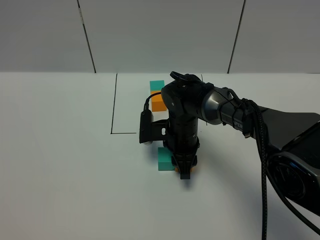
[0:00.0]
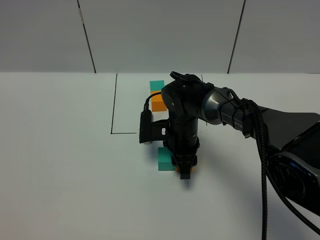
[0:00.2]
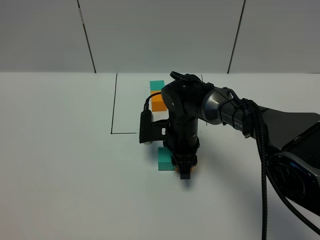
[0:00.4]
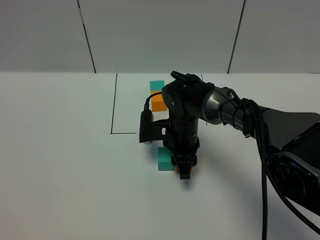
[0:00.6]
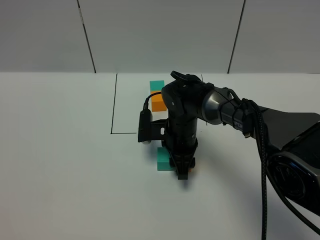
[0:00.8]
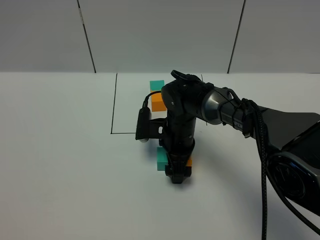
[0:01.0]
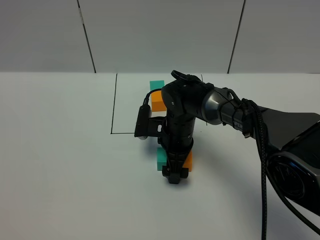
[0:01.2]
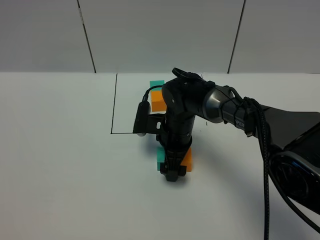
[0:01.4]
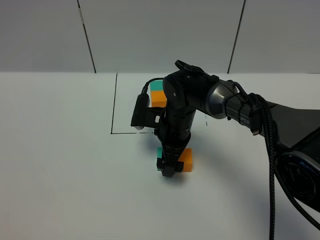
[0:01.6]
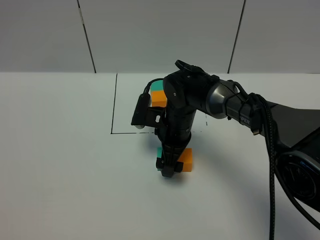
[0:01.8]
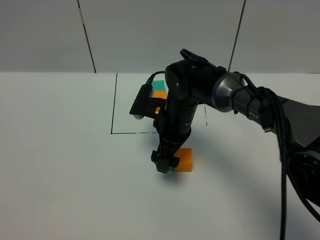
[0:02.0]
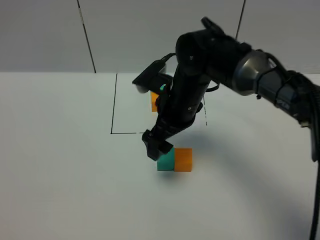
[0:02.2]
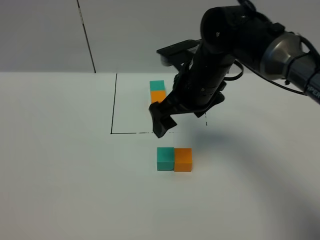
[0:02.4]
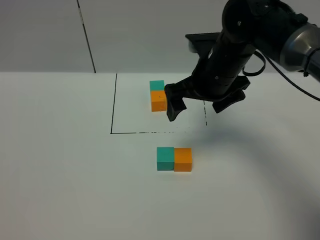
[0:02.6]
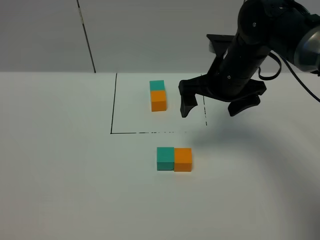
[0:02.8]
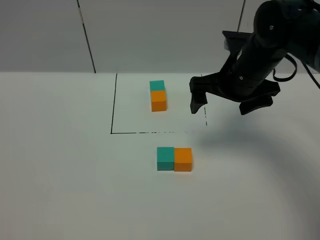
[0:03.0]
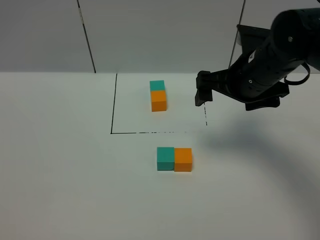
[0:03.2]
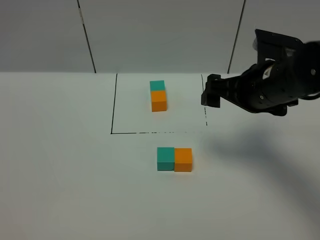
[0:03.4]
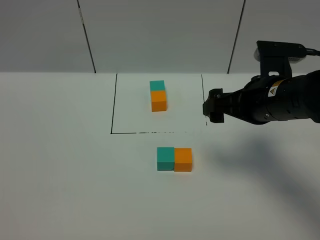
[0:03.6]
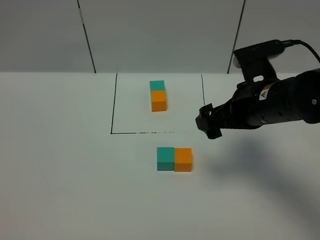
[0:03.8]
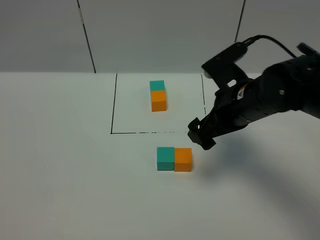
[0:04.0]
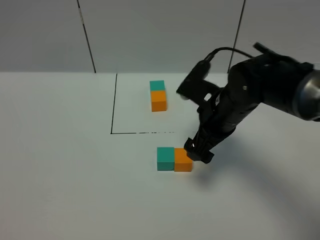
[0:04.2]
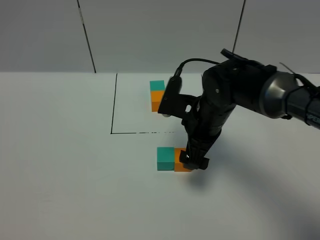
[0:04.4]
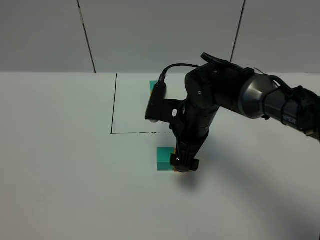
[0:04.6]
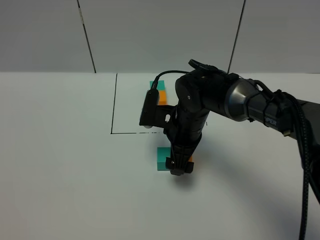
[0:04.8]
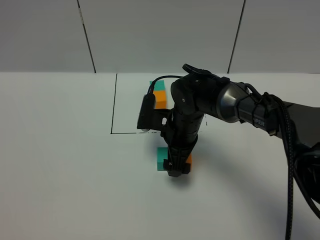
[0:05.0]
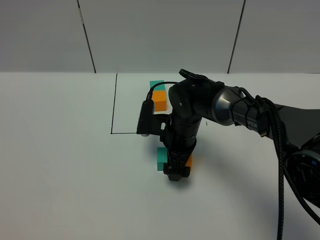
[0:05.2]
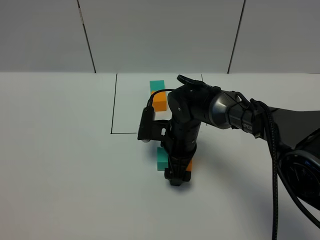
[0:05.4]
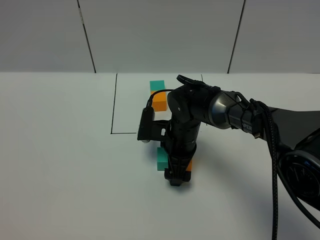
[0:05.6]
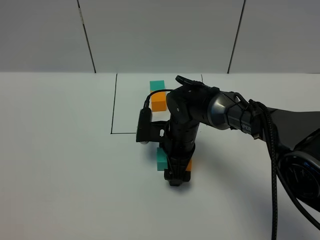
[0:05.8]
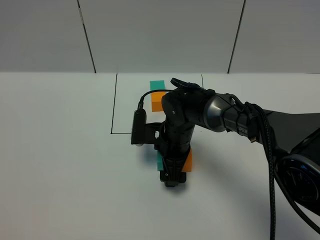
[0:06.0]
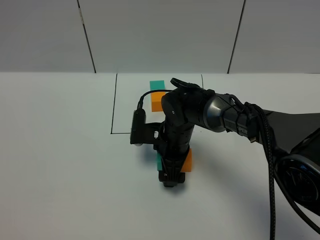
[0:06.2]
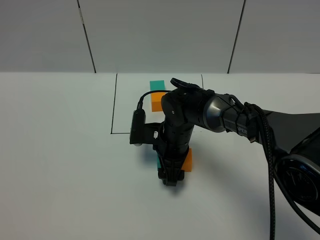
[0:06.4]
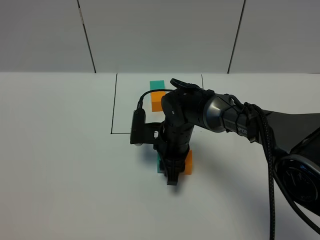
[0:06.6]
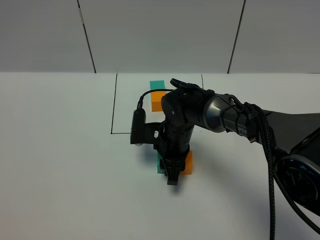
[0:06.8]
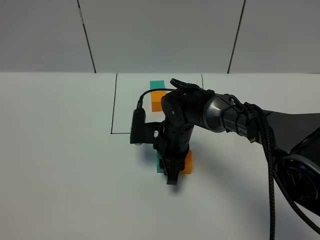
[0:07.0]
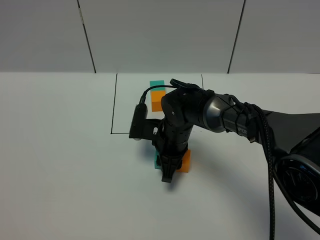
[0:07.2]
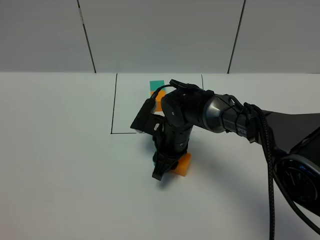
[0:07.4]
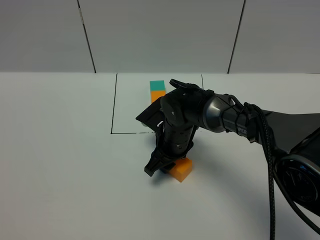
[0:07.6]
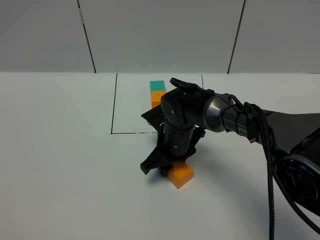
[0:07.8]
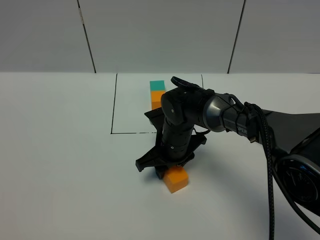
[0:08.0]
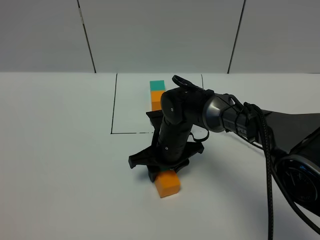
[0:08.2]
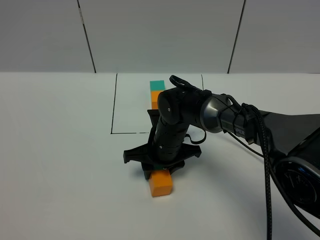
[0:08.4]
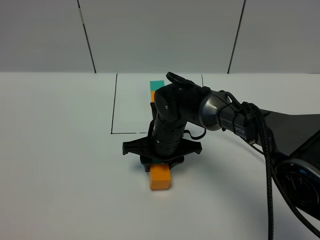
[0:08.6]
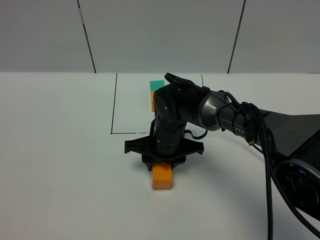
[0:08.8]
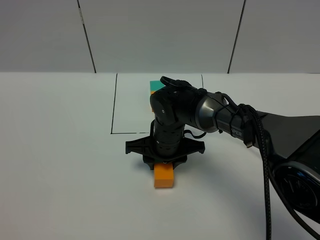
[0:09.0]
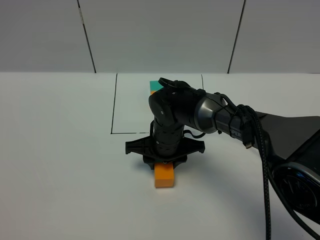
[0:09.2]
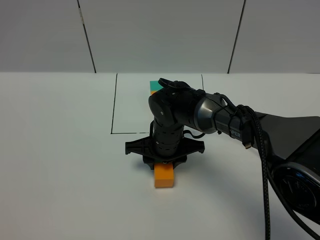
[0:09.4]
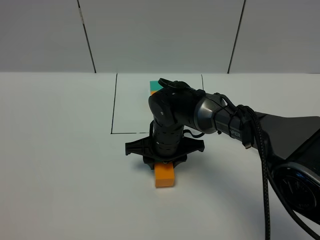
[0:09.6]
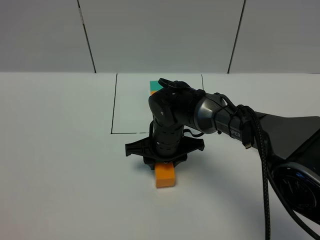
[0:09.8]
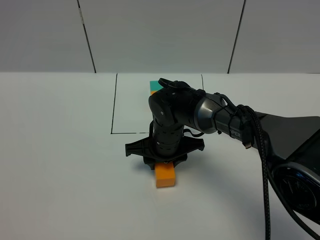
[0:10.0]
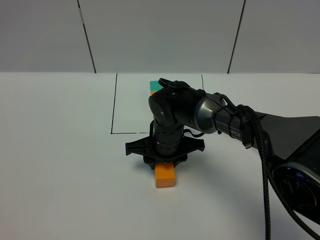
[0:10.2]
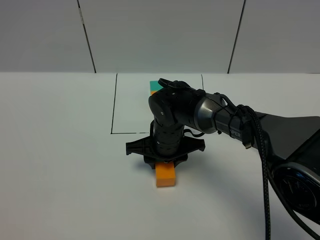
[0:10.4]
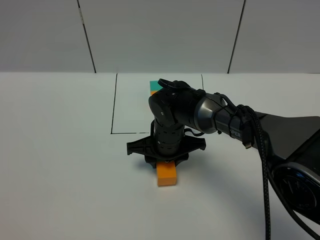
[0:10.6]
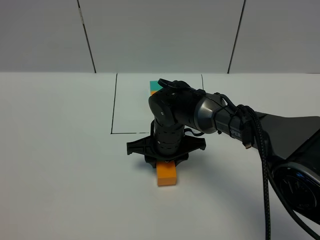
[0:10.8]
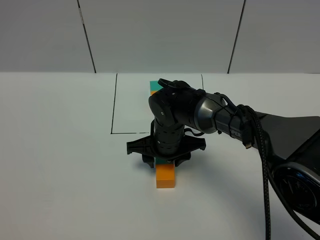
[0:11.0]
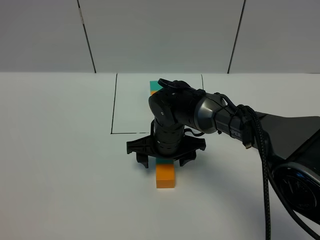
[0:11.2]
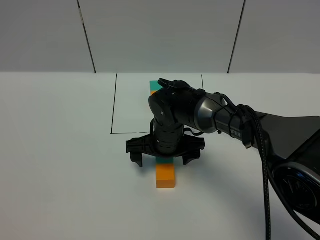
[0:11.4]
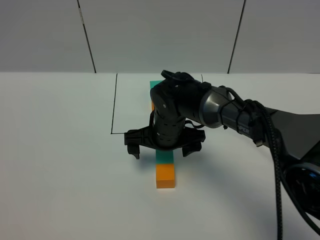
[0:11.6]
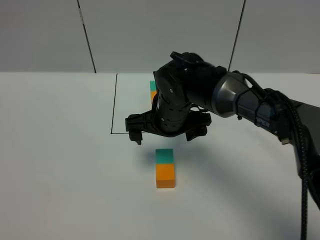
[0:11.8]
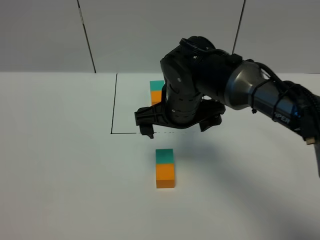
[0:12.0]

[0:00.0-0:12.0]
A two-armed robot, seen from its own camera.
Task of the whole recording: According to the building block template in front, assemble the scattered blocks together.
Step, 0:01.4 to 0:11.4: Adjust the pose of the building blocks.
0:00.0 to 0:01.6: The right gripper opens its fingers.
0:01.6 to 0:03.0: The right gripper shifts roughly 20 cm upward and to the right.
0:03.0 to 0:04.4: The right gripper shifts approximately 10 cm downward and to the left.
0:04.4 to 0:06.0: The right gripper moves downward and to the left, about 10 cm.
0:06.0 to 0:07.6: The right gripper closes.
0:09.0 to 0:10.4: Both grippers stay put.
0:10.4 to 0:12.0: The right gripper goes some 10 cm upward, and opens its fingers.

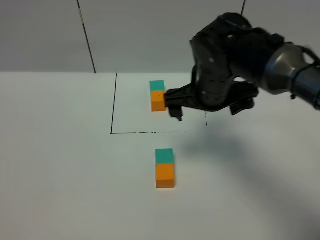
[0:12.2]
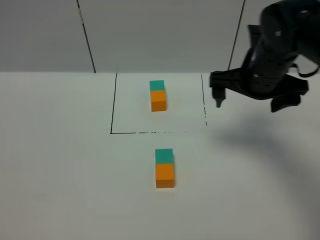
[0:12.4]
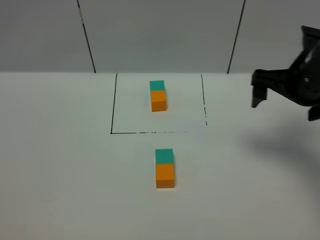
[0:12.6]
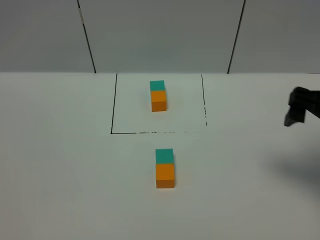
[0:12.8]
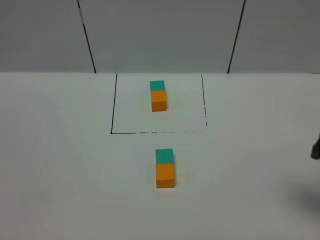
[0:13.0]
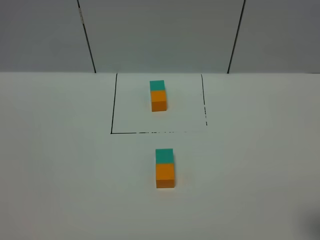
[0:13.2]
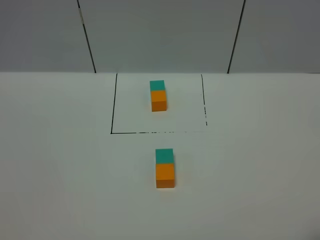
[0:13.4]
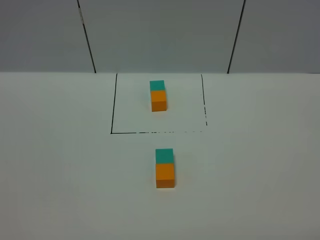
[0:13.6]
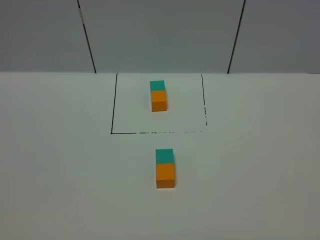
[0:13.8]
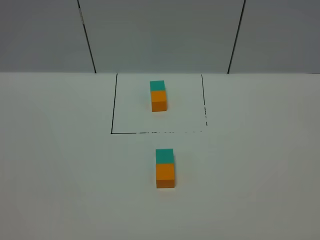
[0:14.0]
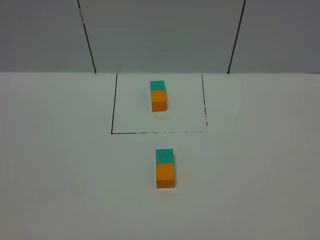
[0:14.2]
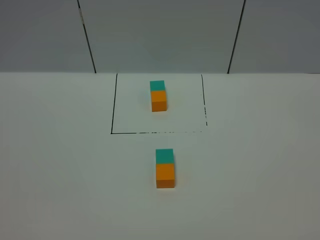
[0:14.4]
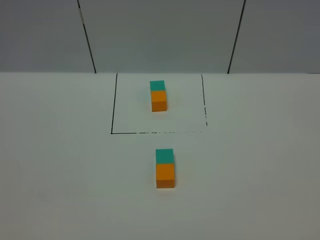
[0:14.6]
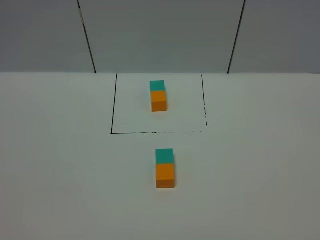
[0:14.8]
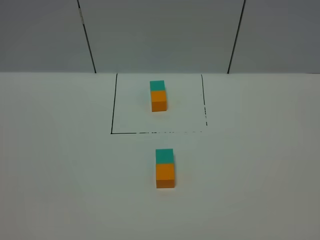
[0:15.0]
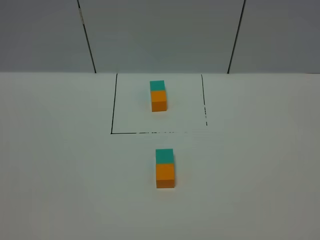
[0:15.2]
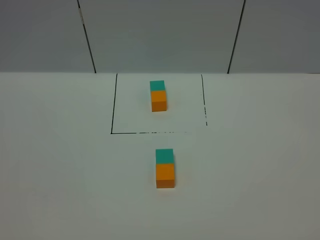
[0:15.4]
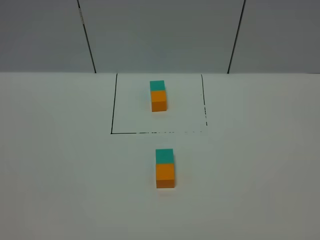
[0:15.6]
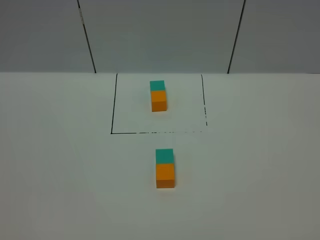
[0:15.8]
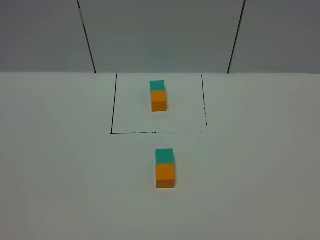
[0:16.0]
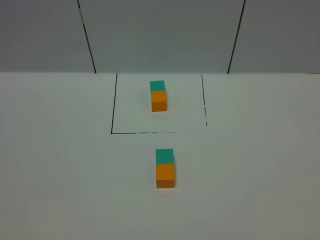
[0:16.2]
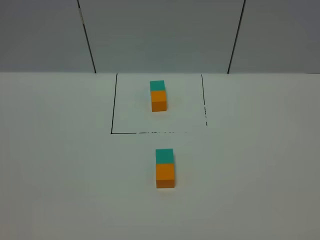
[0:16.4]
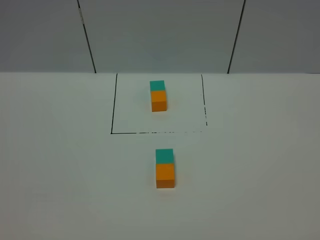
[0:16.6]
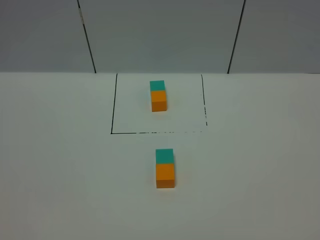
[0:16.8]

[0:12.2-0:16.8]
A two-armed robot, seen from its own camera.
Task of the whole recording: According to the building block template in front, assemble the scattered blocks together.
0:12.2 to 0:13.8: The right gripper shifts roughly 40 cm backward and to the right.
0:15.2 to 0:16.8: Neither gripper changes place.

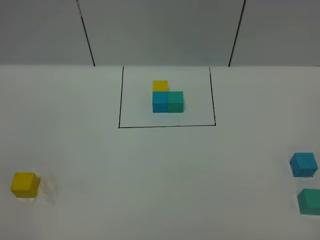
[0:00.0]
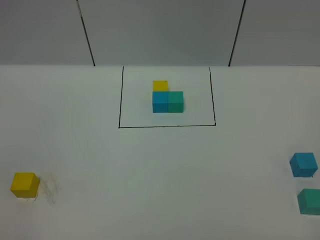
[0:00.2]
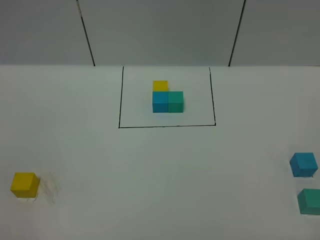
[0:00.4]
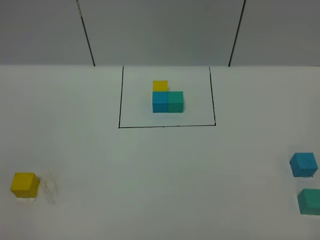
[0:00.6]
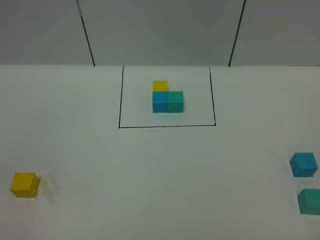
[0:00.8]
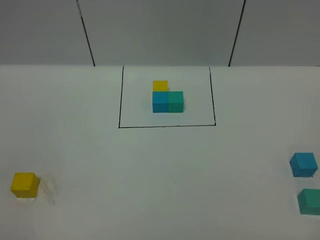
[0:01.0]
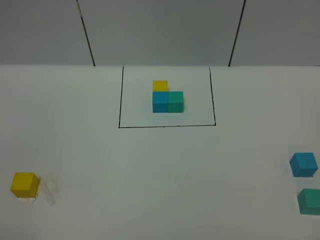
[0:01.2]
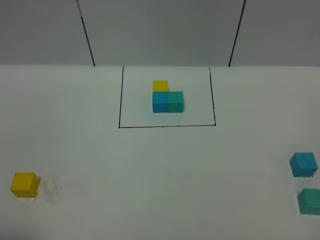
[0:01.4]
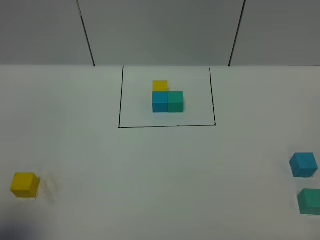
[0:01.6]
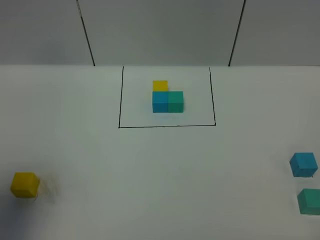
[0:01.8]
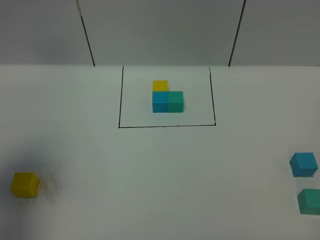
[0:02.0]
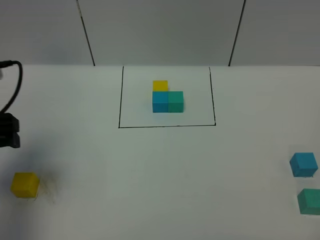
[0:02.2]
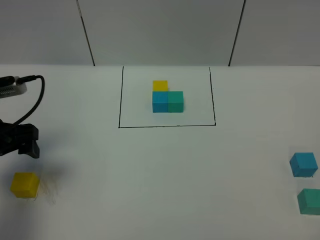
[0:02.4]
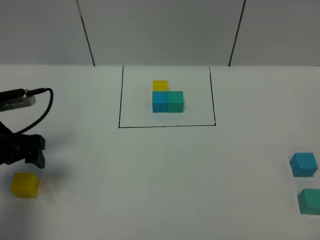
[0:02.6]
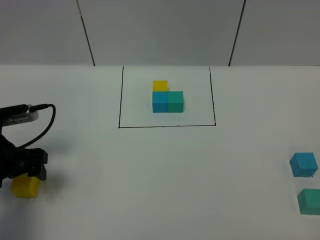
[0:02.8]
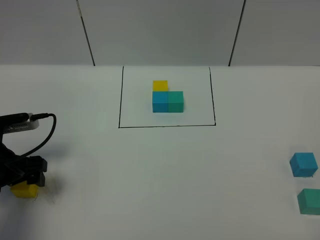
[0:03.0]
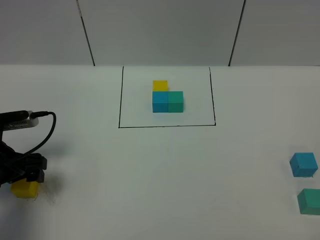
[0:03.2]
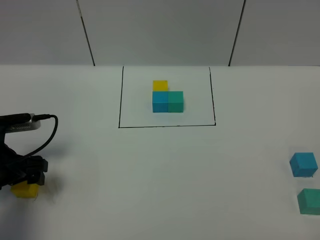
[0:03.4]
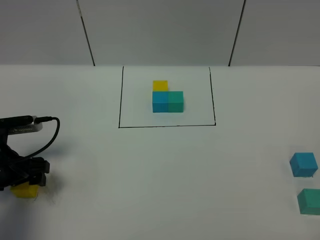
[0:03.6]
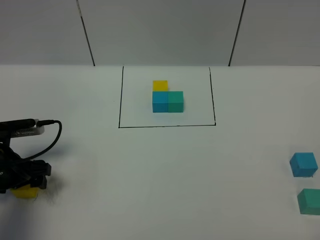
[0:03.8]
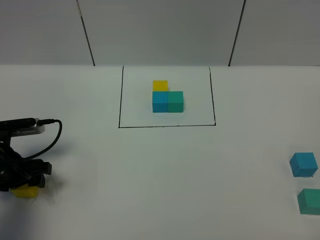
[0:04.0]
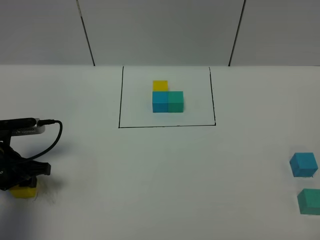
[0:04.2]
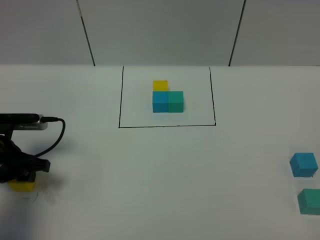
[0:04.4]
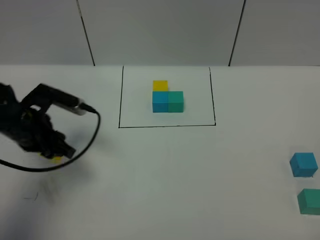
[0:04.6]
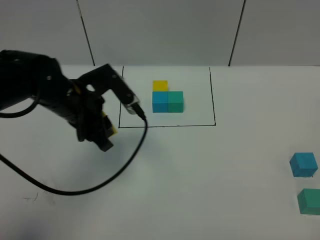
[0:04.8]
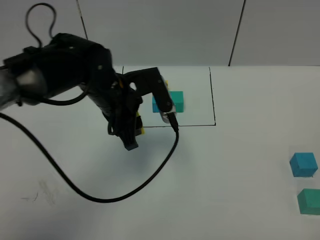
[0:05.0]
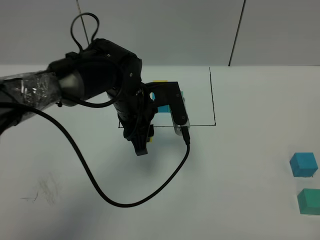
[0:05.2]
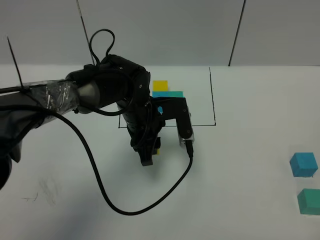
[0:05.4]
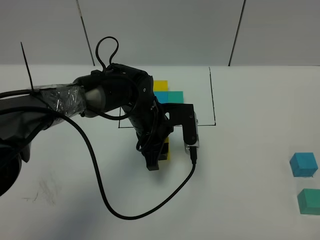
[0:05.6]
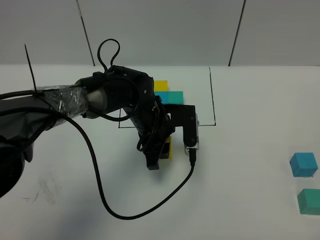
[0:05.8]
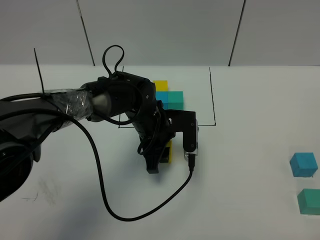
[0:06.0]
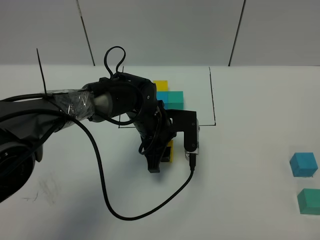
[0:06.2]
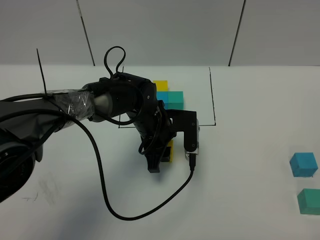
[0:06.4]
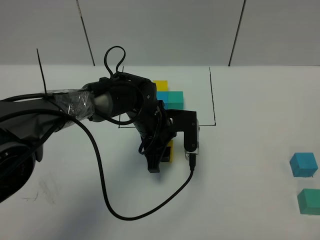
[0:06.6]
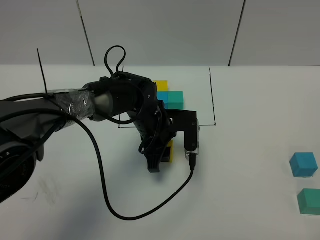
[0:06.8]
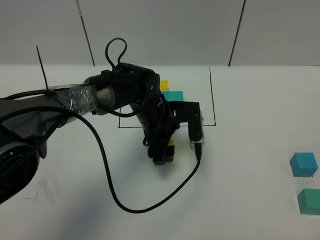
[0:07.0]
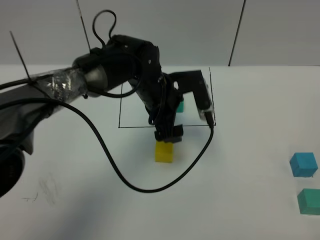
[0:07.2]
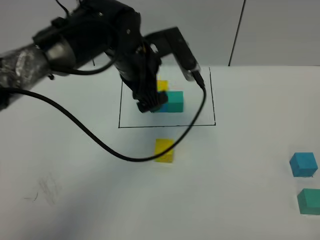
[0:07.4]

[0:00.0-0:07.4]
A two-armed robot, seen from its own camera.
Task of the whole recording: According to the building block template in front, assemble the scattered blocks together.
Step, 0:02.2 to 0:07.0: Put the yellow cube in the center of the table.
0:01.4 to 0:03.0: The left gripper goes roughly 25 cm forward and downward, and opens.
0:03.0 to 0:04.4: The left gripper closes its fingers.
0:04.4 to 0:06.0: The left gripper goes some 25 cm to the right.
0:06.0 to 0:07.4: The left gripper goes roughly 15 cm upward, and opens up.
